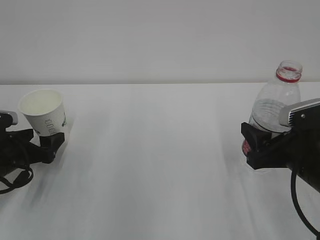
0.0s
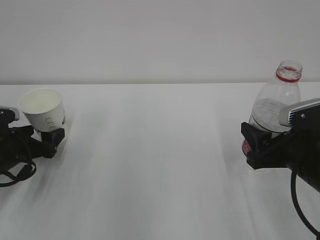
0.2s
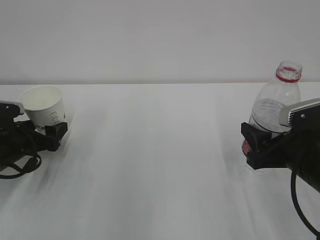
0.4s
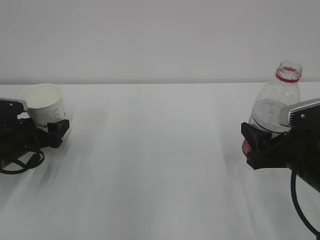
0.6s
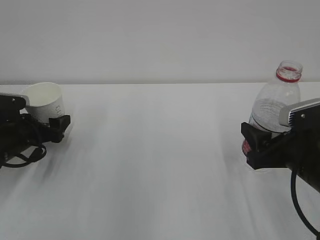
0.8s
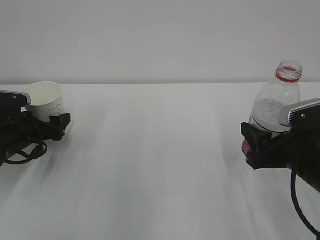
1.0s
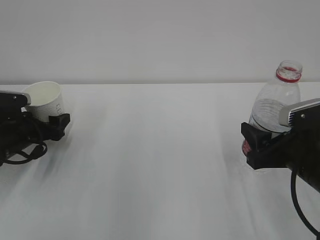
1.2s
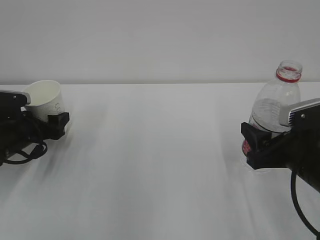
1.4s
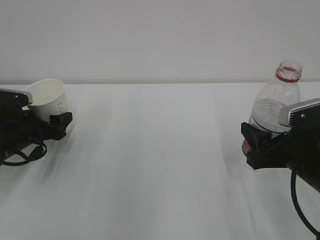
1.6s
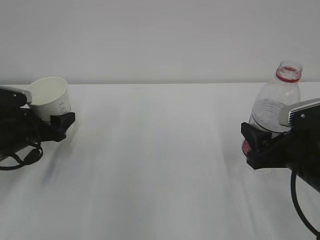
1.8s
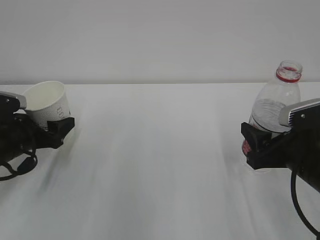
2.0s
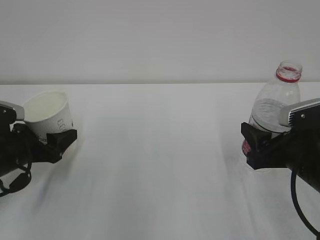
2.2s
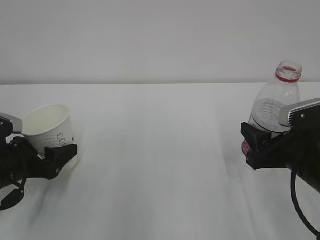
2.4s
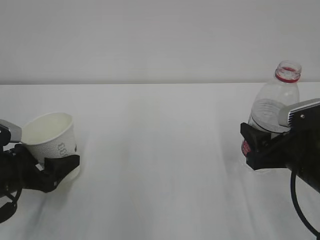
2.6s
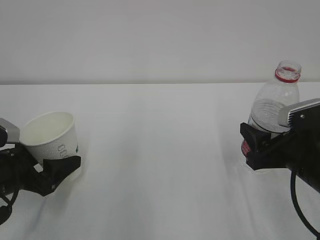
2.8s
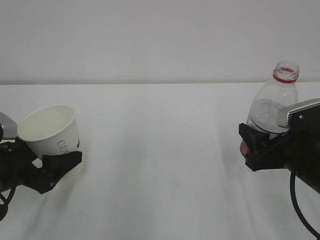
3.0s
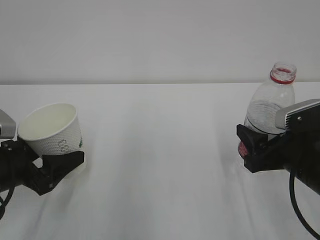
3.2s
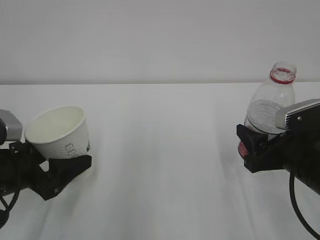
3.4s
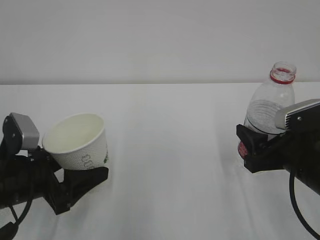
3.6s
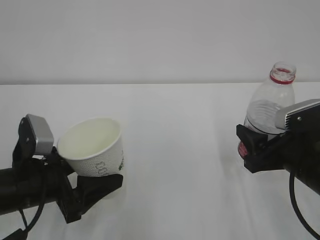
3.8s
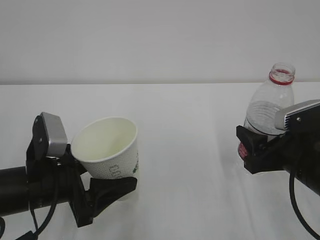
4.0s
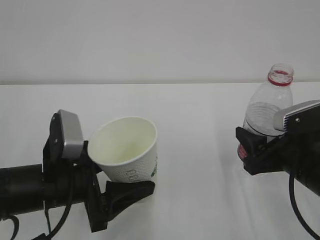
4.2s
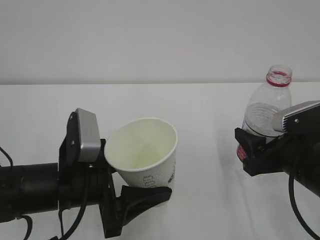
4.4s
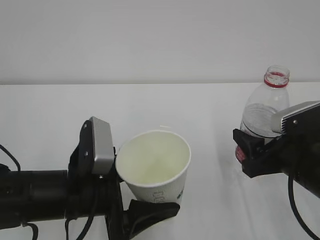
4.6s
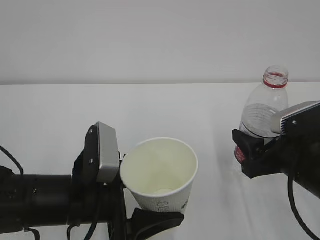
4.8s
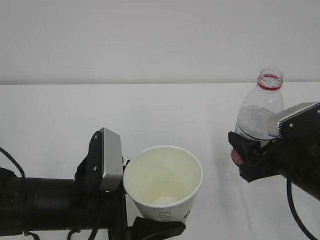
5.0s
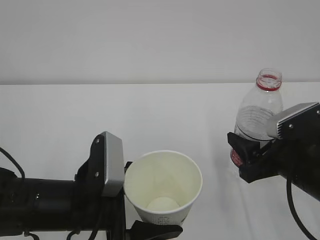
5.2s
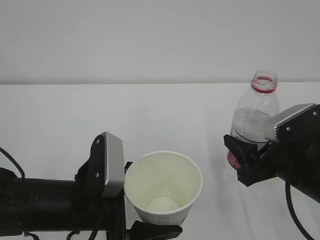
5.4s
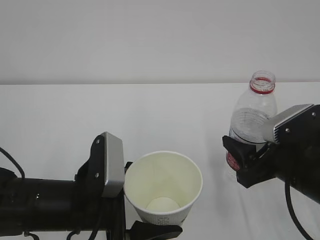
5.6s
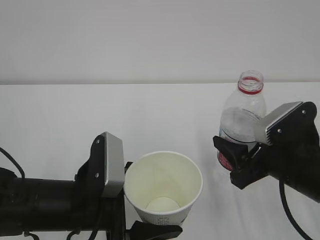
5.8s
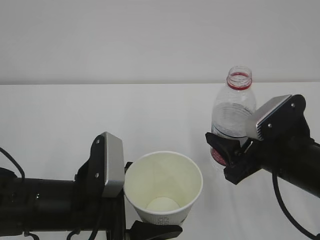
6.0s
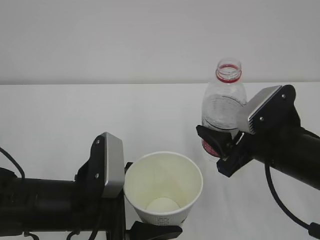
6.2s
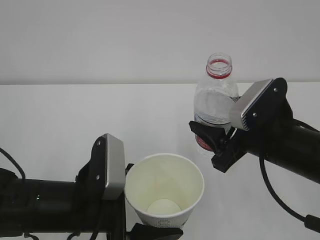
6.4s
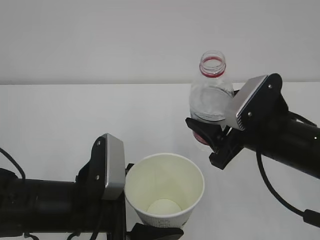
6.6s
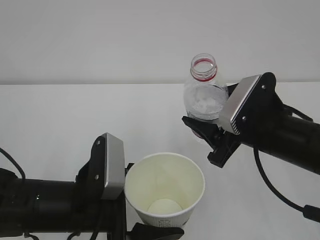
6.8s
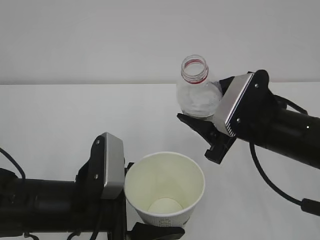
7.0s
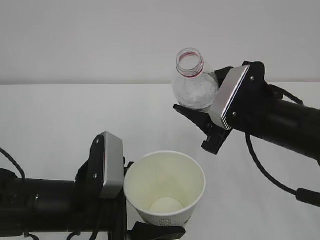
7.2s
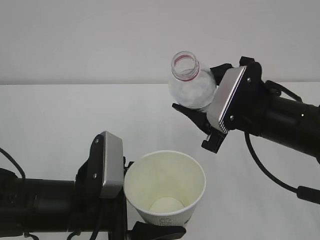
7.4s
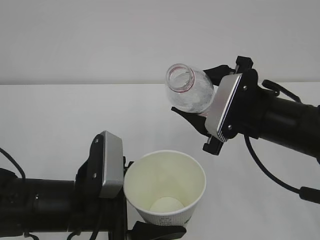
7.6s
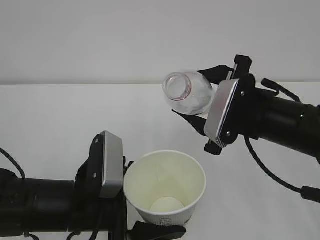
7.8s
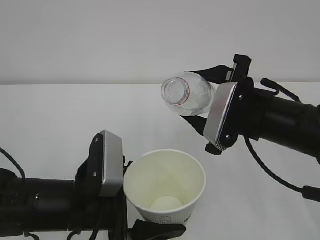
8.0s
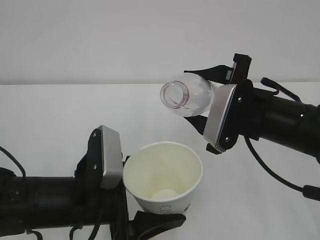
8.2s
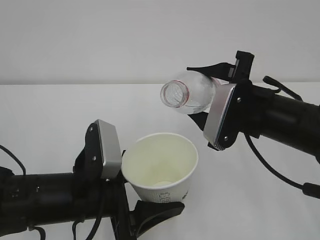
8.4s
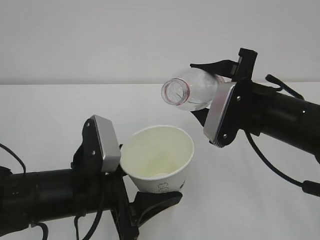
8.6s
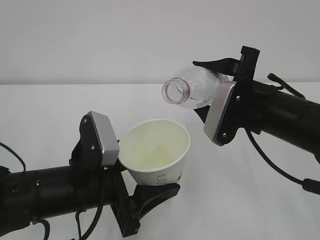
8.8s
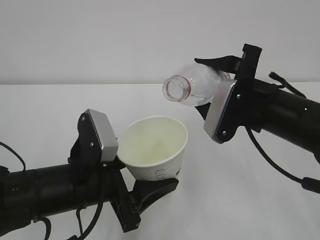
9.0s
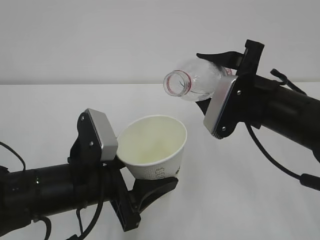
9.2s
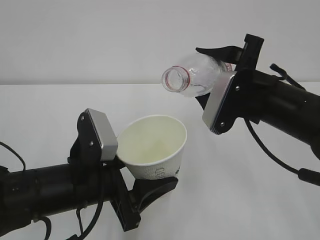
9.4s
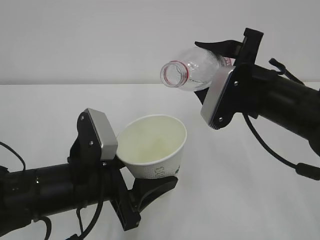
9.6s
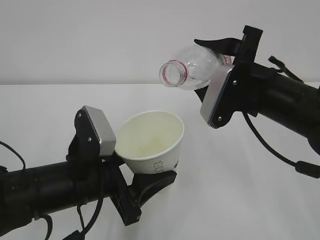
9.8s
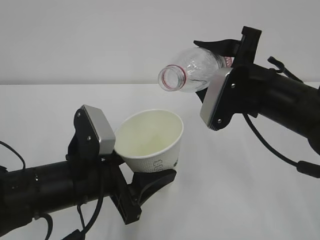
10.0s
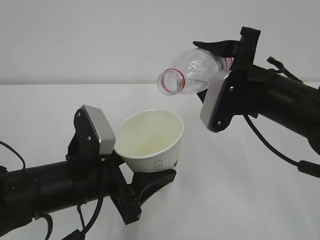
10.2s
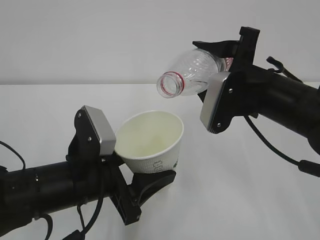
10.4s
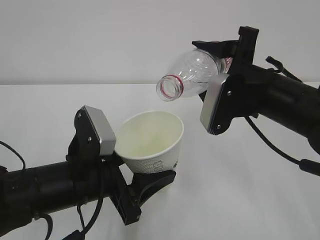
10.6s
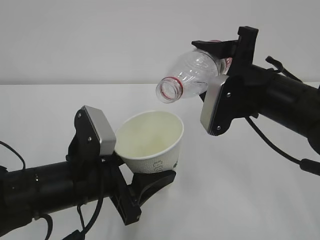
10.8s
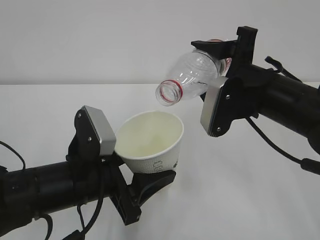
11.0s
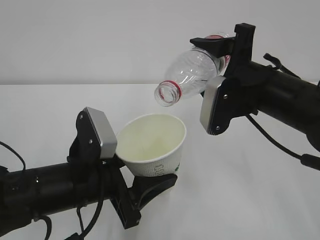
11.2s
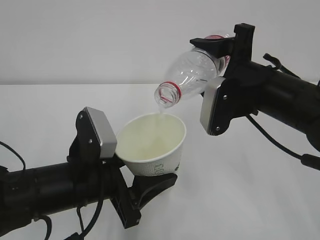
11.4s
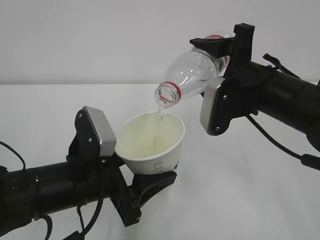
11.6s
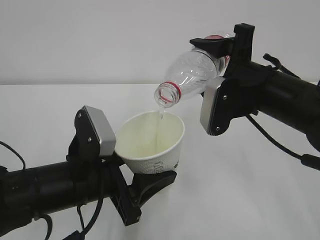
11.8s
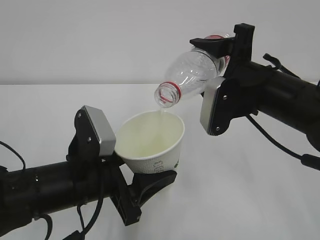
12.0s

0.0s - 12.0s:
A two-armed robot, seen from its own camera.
0.0s - 1.6s: The left gripper goes about 5 cm forward, and closes its fingers.
1.6s - 3.0s: The left gripper travels backward by about 10 cm.
3.0s - 4.4s: The left gripper moves to the right, some 15 cm.
6.0s - 7.6s: The right gripper changes place by about 5 cm.
9.0s - 10.4s: The grippers stay close to where they were, moving slightly.
10.4s - 12.0s: The grippers stay close to where they were, moving slightly.

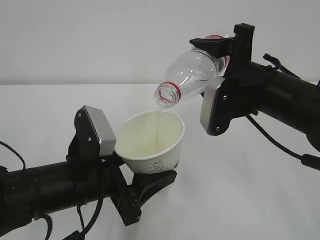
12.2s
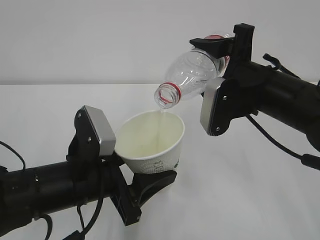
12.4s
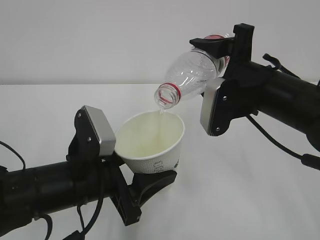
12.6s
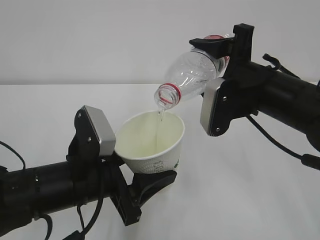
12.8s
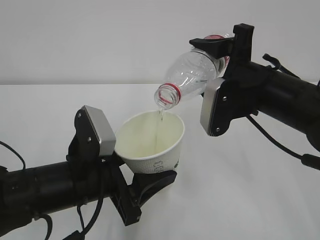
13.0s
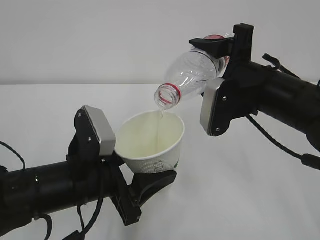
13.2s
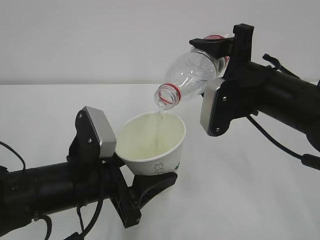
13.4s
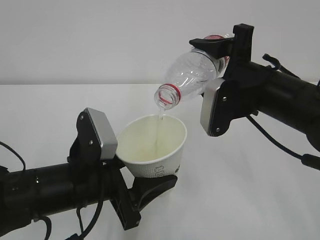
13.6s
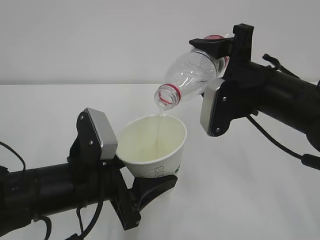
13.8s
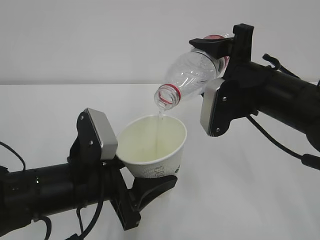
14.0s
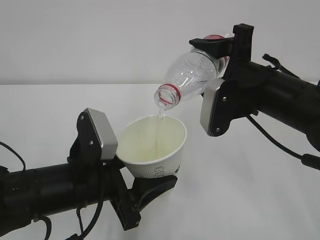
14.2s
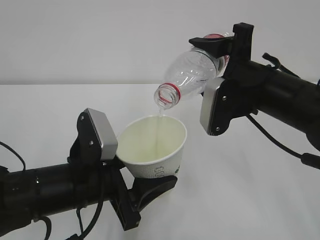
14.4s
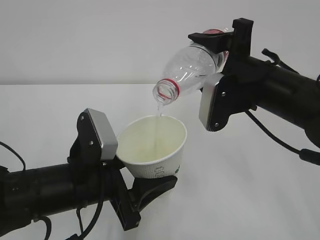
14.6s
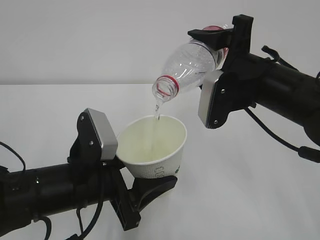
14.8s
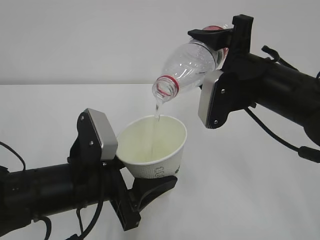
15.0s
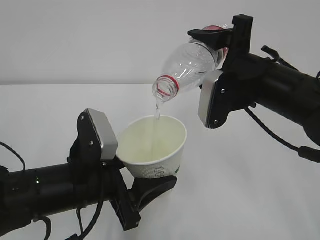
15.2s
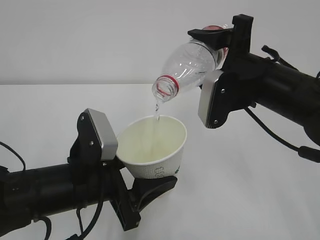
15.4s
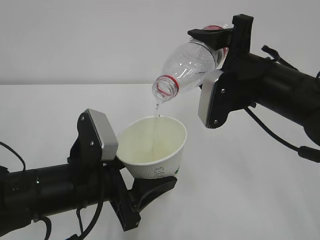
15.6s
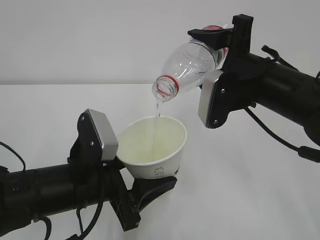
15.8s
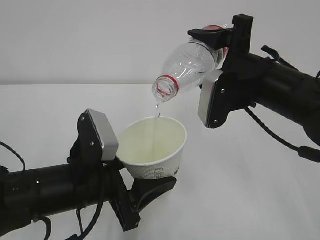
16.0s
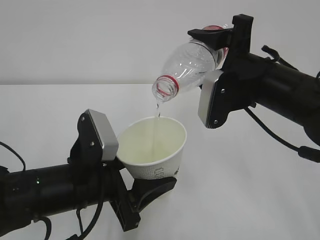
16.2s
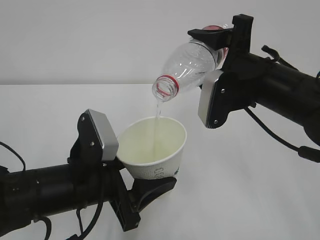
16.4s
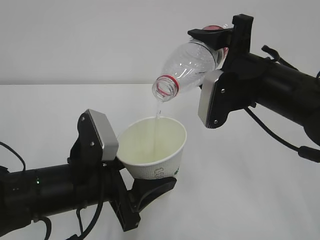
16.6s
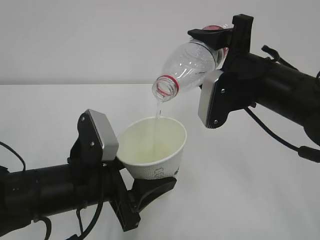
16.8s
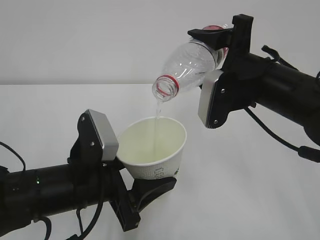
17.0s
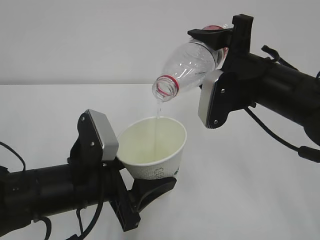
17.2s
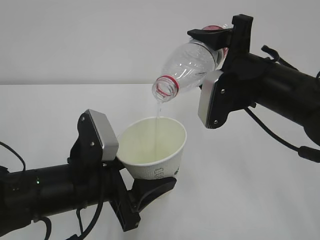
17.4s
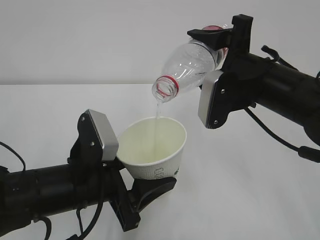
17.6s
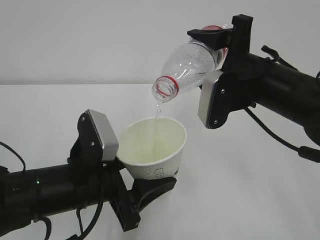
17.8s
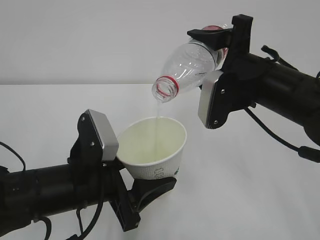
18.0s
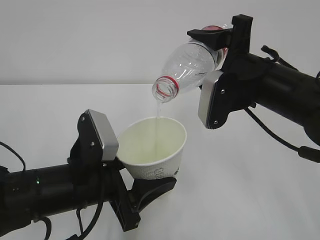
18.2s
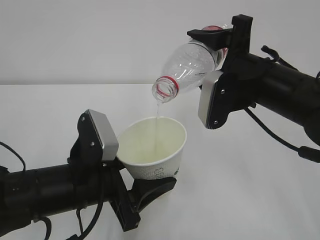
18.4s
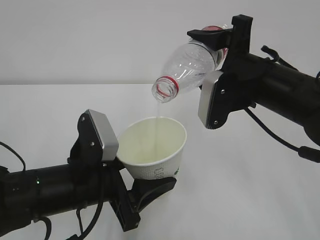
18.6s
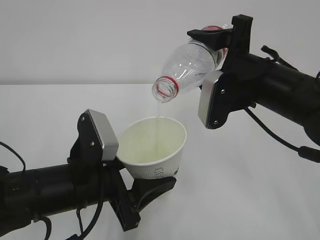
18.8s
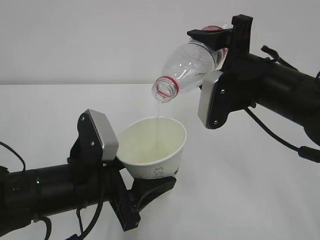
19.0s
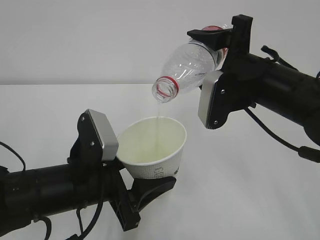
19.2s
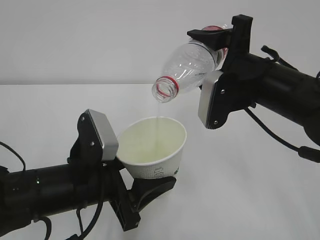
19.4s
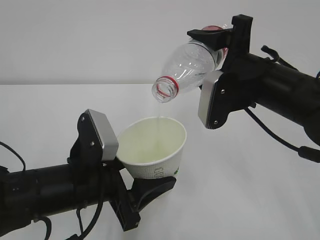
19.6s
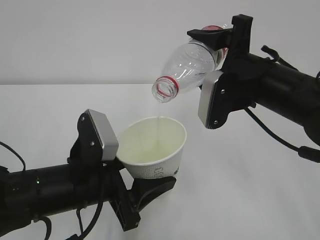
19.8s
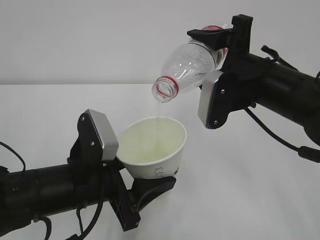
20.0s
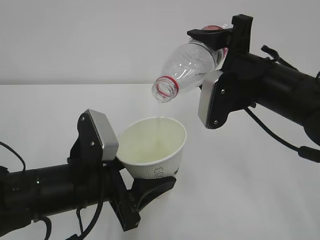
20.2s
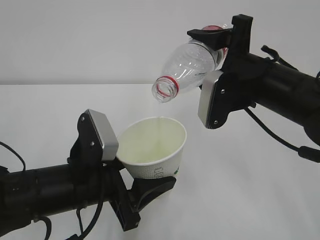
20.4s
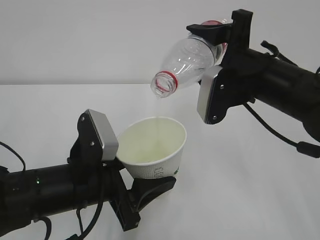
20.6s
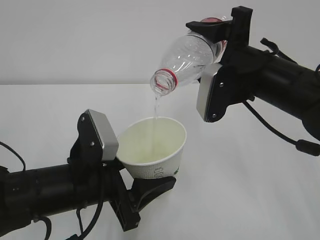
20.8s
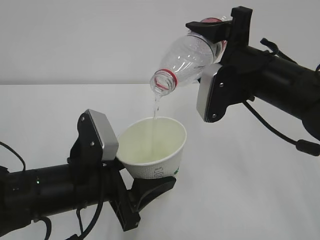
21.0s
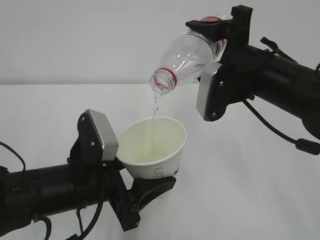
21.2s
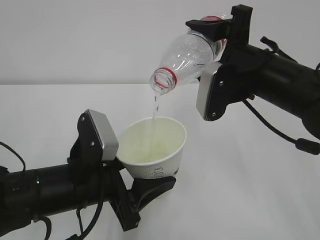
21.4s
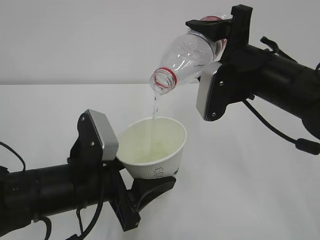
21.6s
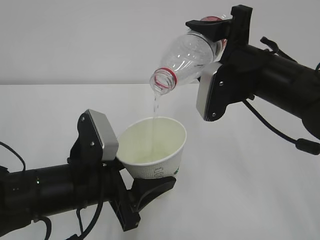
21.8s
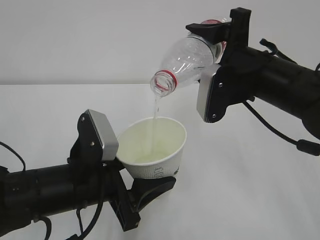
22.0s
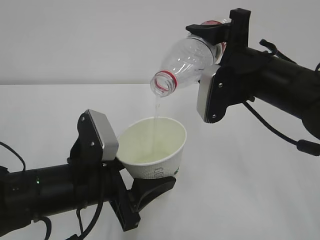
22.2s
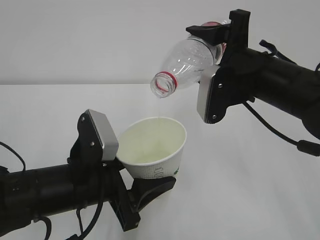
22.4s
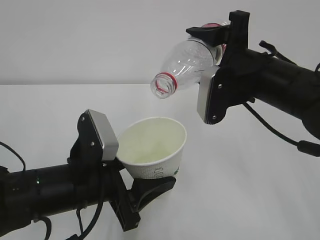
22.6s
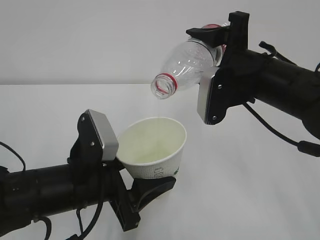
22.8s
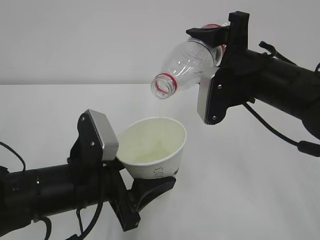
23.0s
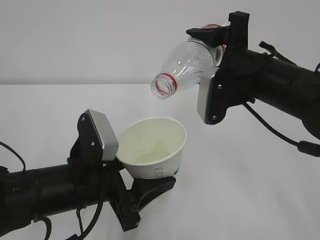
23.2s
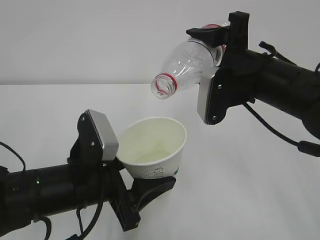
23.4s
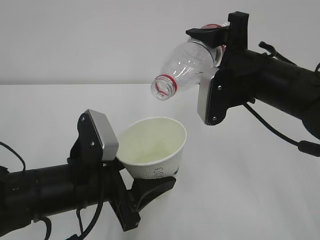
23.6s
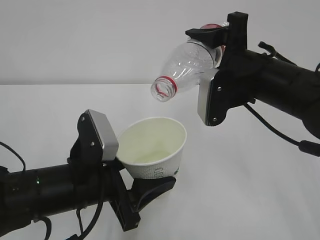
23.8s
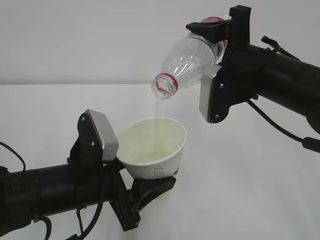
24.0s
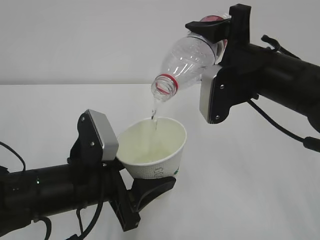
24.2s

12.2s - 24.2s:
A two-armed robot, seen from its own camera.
12.2s - 19.8s: Both grippers stay put.
19.8s - 24.2s: Both grippers stay put.
